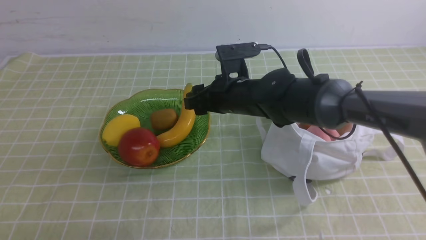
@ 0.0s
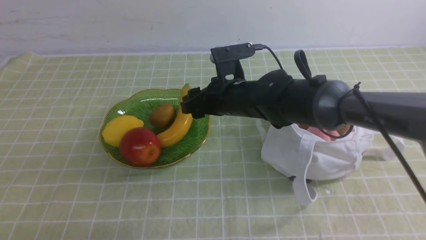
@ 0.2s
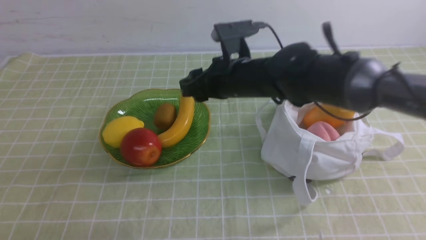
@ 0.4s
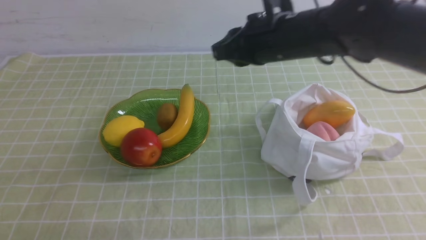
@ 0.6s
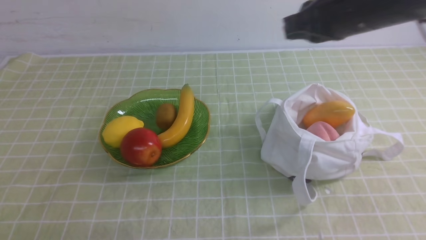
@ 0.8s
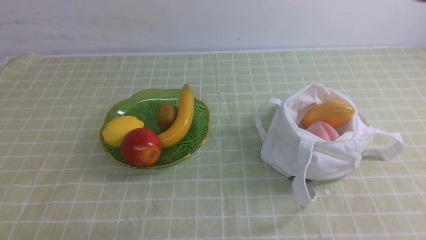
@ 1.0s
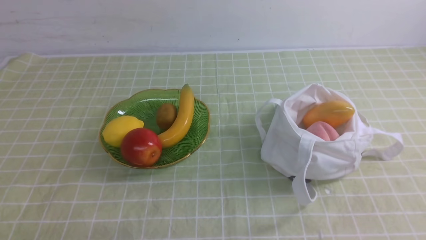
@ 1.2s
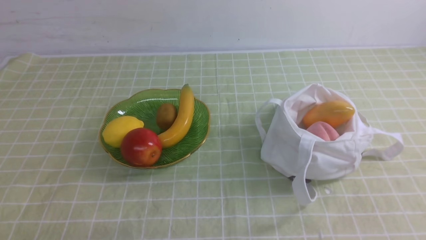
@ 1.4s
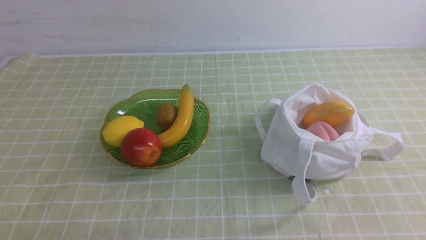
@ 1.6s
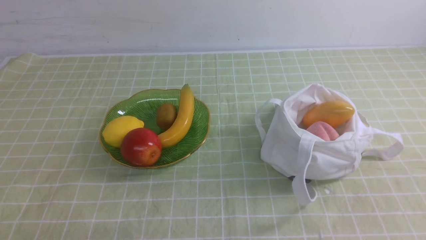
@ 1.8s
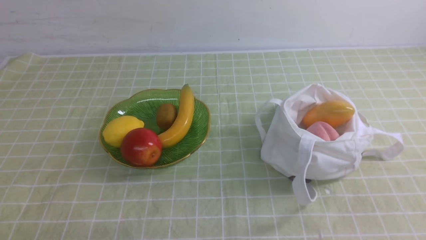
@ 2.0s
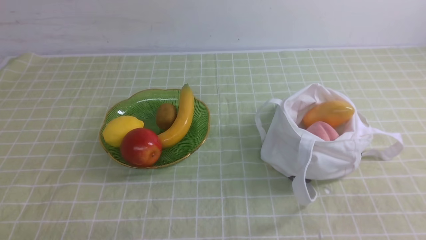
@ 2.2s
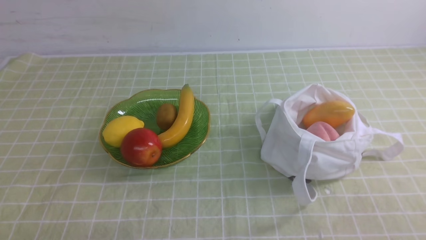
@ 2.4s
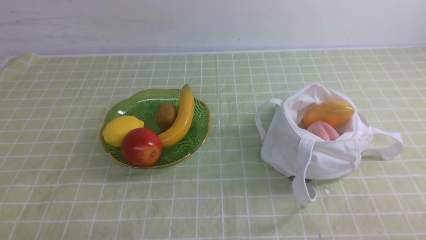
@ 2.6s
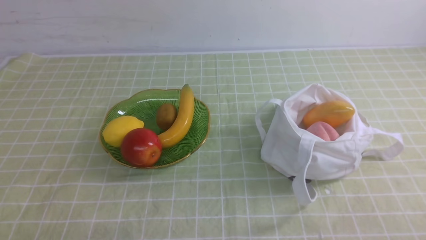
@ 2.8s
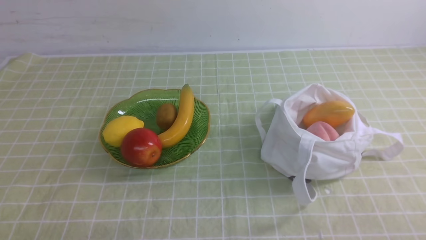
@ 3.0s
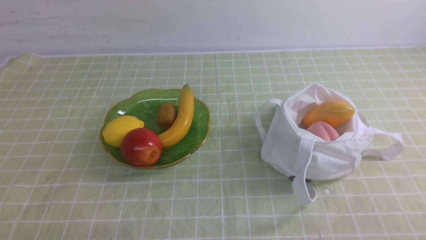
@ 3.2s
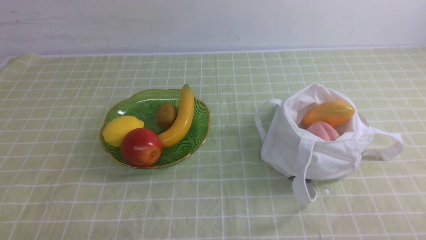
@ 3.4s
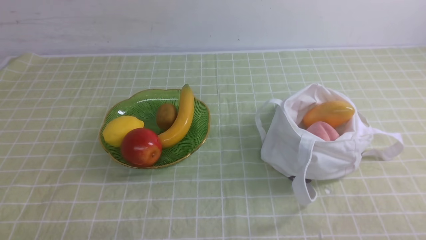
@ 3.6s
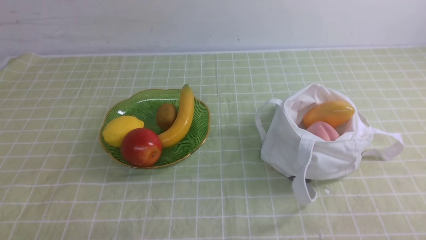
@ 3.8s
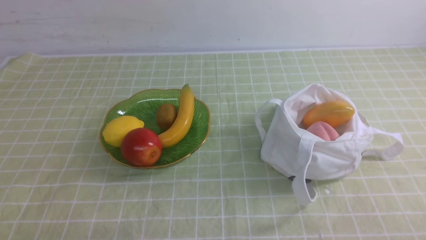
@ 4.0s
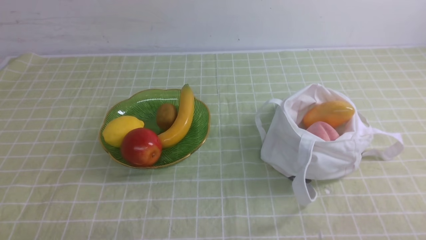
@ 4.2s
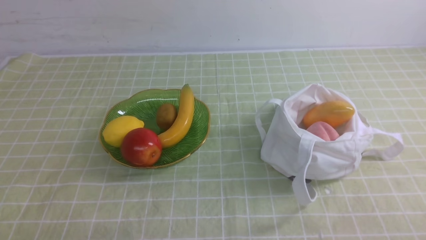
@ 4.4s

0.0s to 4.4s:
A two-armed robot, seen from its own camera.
0.0s to 1.4s: The right gripper shifts roughly 50 cm backward, to the right and upward, and closes its fingers.
3.0s to 4.4s: Neither gripper changes place.
